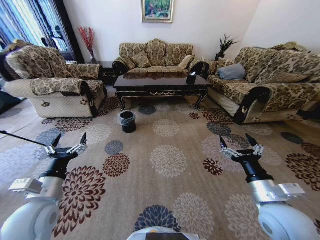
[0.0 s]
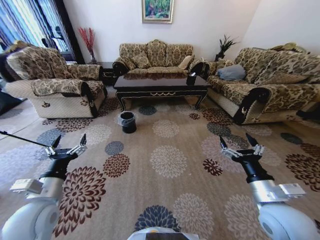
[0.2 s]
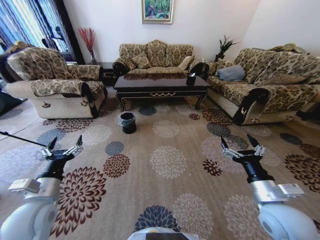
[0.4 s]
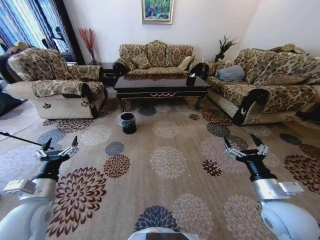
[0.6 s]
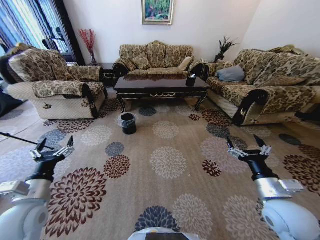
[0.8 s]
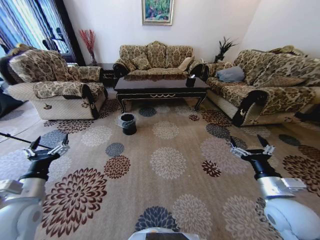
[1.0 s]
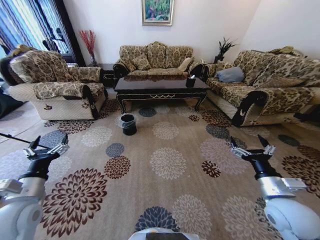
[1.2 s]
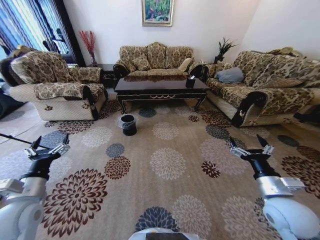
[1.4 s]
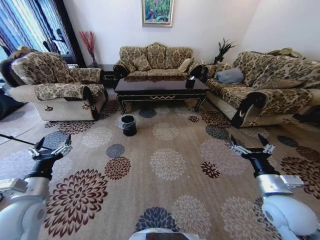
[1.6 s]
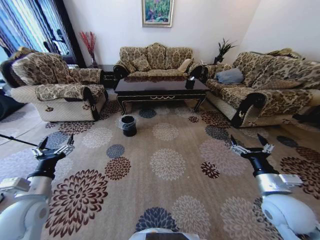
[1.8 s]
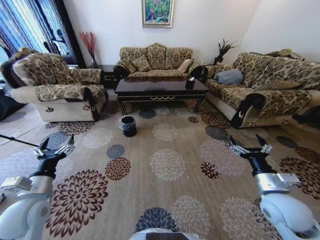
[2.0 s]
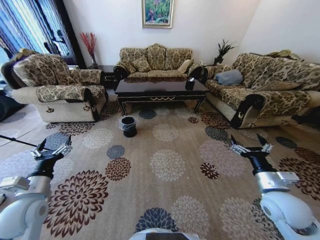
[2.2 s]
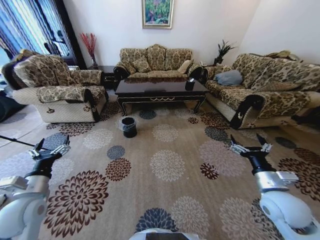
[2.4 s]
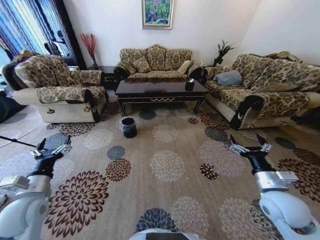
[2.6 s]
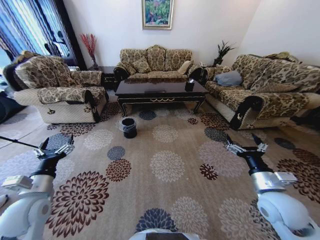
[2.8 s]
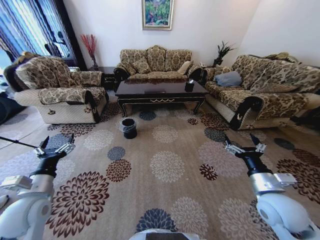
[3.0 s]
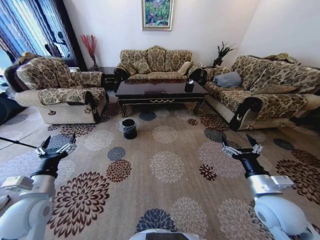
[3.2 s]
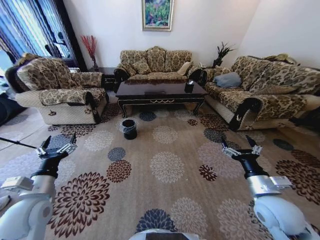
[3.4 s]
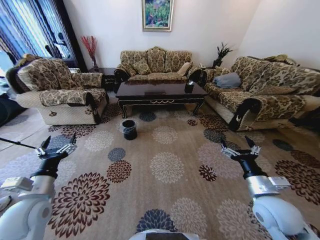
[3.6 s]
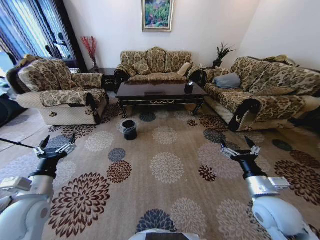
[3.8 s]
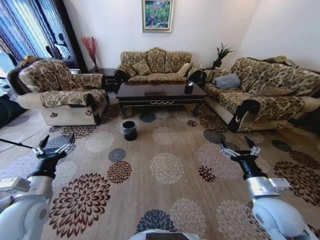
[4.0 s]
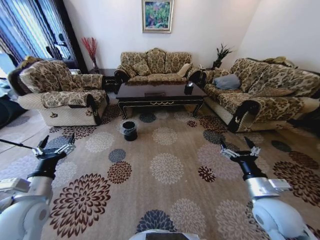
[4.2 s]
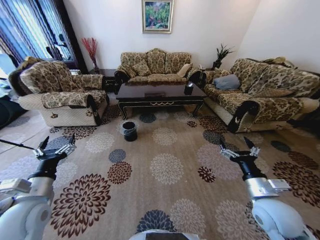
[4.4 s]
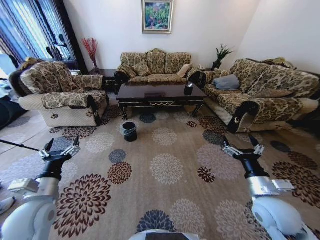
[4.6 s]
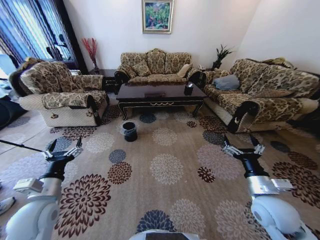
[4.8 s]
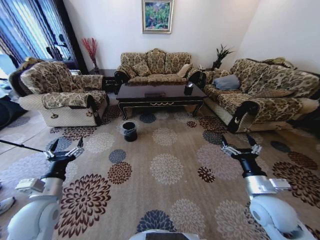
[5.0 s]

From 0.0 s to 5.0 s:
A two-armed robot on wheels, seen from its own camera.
Task of the whole recording: Move to the front of the table and pick up the trash from the floor, then place it into the trash bin.
From 0.0 s to 1.6 s: The right gripper ends up about 5 cm from where it was. The left gripper travels to the left by roughly 5 cm.
